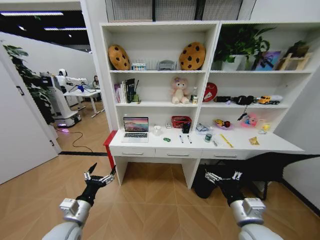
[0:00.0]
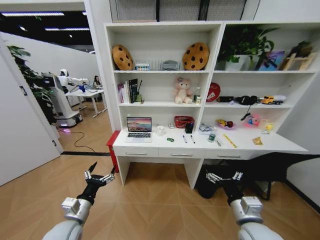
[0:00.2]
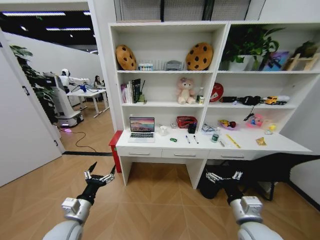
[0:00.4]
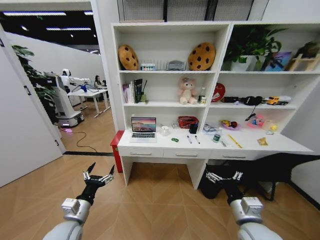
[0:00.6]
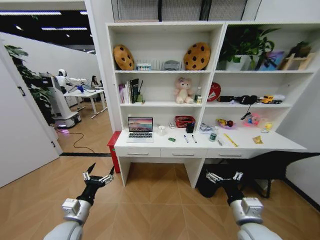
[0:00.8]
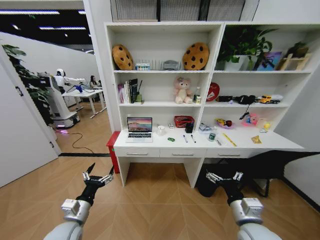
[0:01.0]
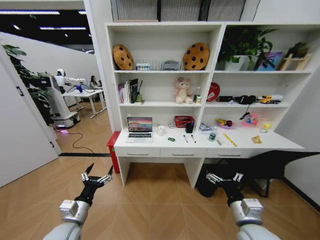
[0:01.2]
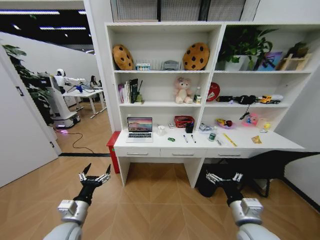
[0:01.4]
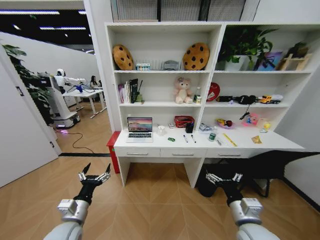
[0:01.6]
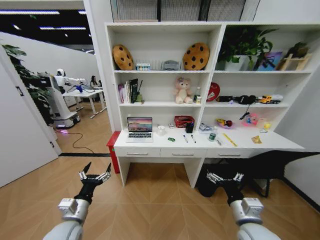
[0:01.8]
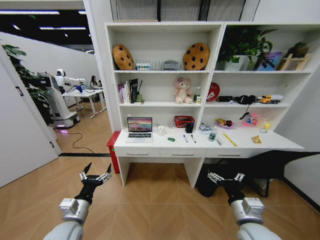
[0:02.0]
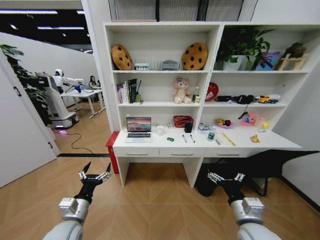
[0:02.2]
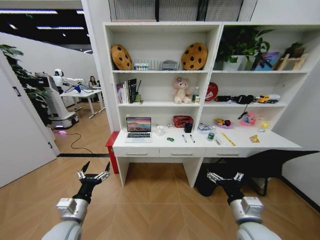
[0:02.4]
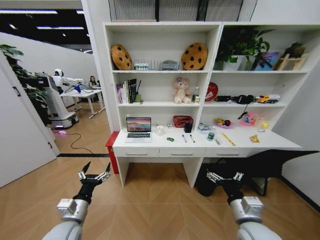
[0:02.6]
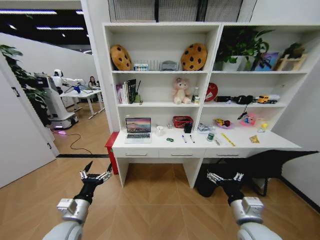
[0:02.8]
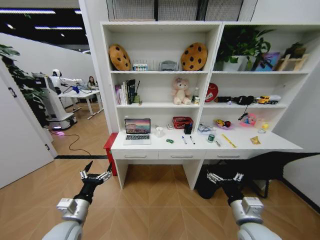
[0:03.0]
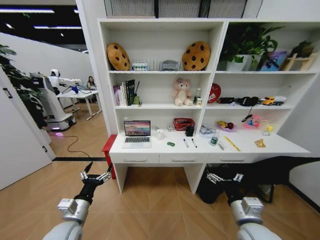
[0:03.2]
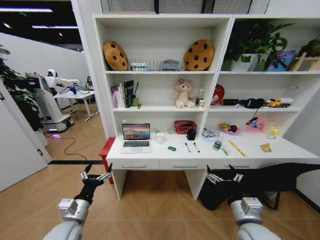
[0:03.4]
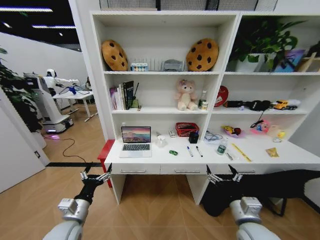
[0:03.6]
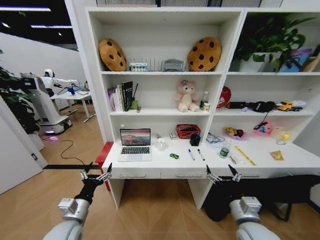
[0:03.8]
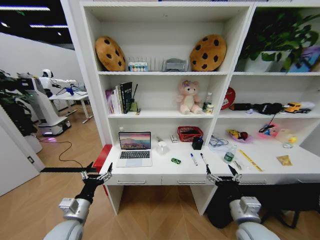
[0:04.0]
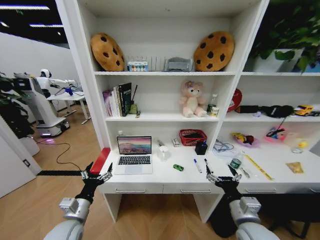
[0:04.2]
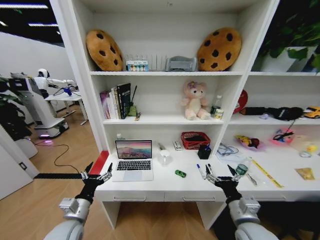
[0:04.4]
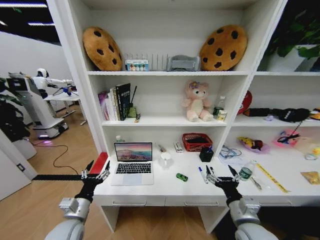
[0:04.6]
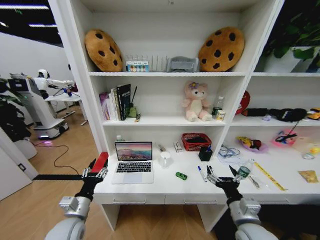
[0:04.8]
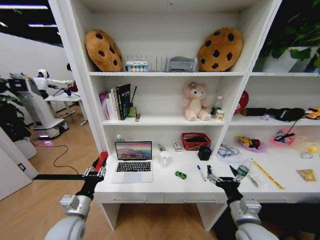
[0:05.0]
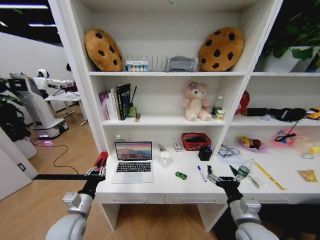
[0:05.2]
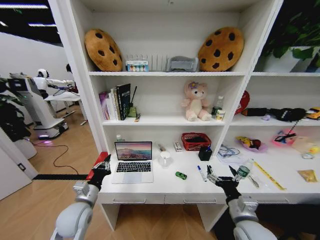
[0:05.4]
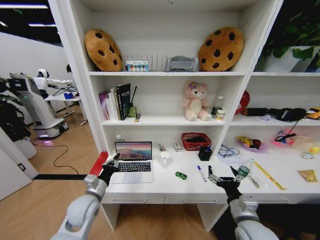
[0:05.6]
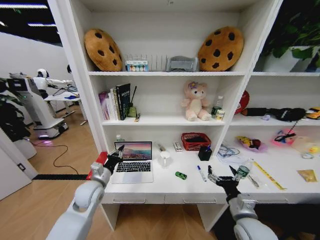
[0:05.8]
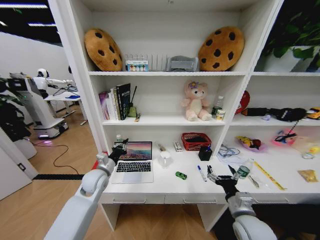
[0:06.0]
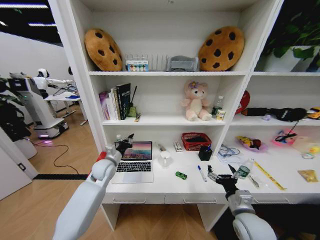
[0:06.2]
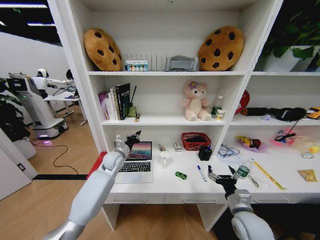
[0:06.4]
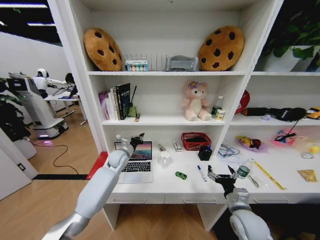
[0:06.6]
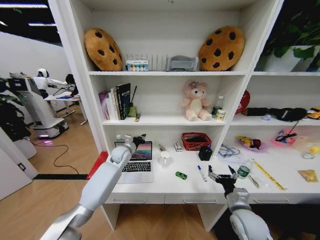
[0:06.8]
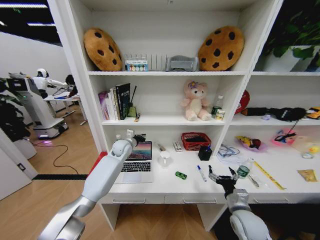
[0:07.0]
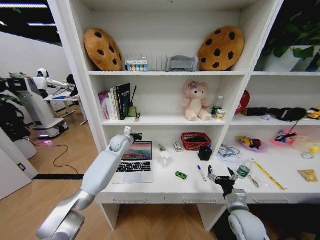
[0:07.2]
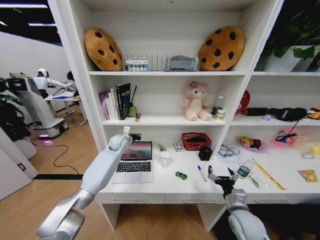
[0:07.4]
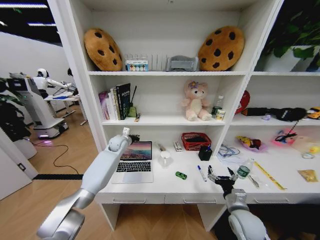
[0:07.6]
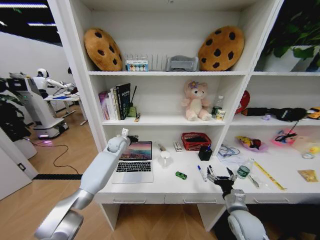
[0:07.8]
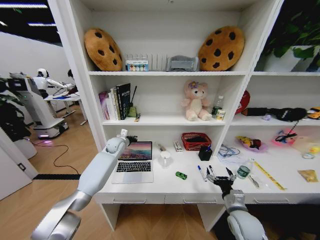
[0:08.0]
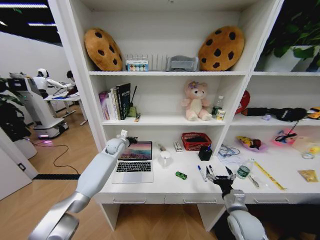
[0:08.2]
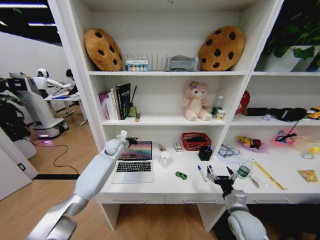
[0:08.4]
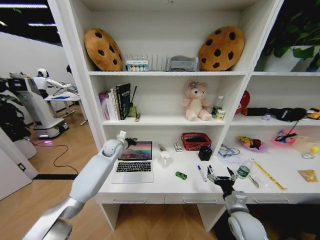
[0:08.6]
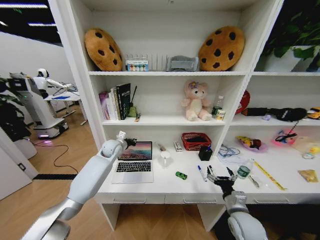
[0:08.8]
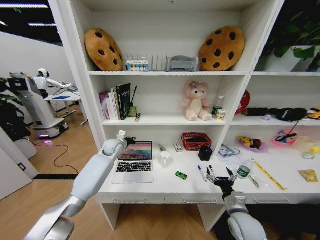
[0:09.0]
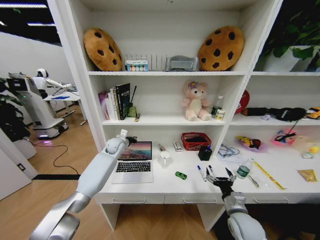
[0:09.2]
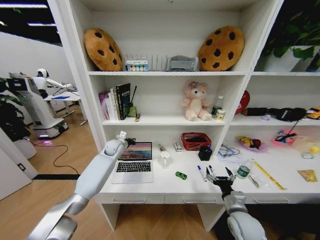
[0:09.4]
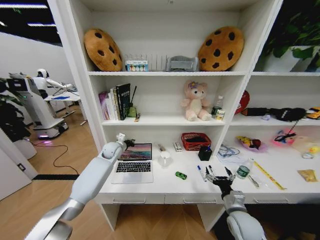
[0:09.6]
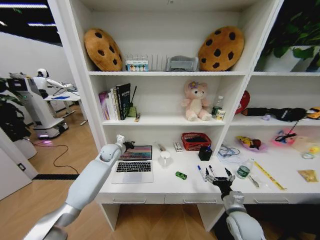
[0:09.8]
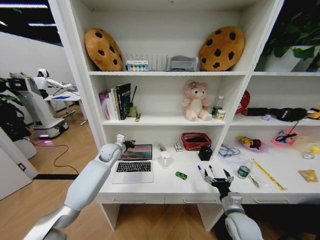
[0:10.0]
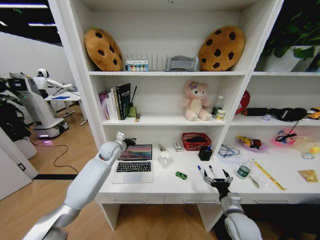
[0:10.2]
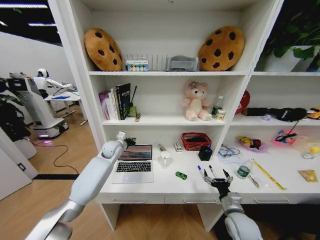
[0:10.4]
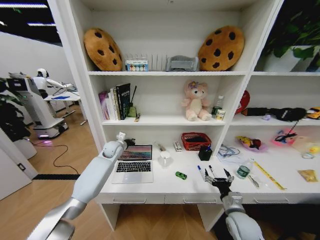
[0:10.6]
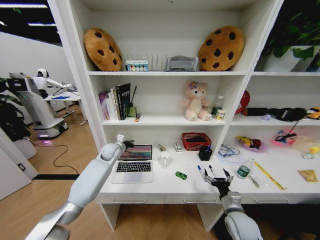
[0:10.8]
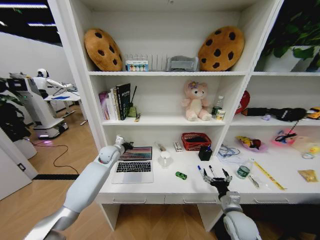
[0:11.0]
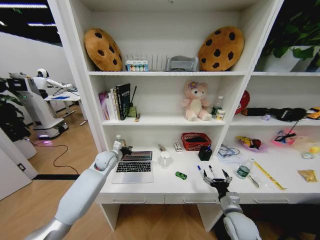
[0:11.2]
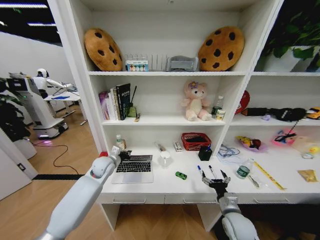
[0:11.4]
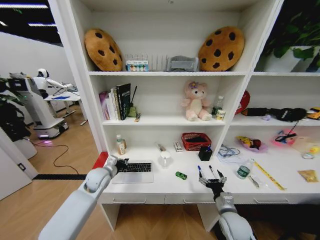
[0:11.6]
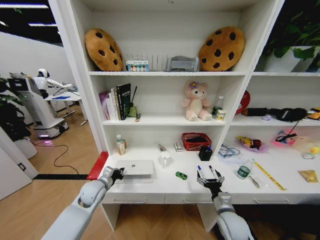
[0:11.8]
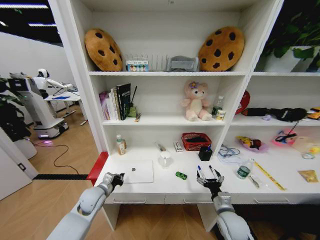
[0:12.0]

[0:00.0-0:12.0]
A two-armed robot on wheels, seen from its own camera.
Task of the whole recording: Organize the objects on the table.
0:01.6 to 0:03.0: Both grippers stay put.
0:04.4 to 0:06.0: The left gripper shifts some 15 cm forward, and closes its fingers.
0:06.0 to 0:07.6: The left gripper goes some 20 cm forward; the right gripper shifts by about 5 cm.
0:07.6 to 0:09.0: The grippers stay close to where they were, moving slightly.
0:09.0 to 0:10.4: There are only small adjustments of the grippers.
0:10.4 to 0:12.0: The left gripper heads backward and downward, covering some 20 cm.

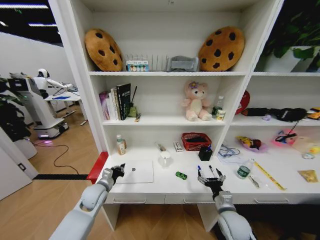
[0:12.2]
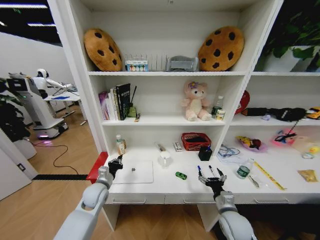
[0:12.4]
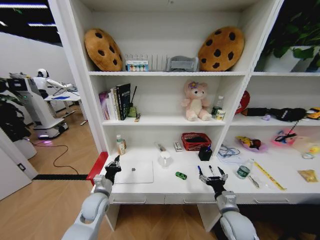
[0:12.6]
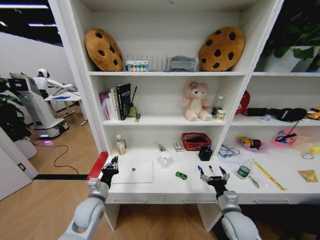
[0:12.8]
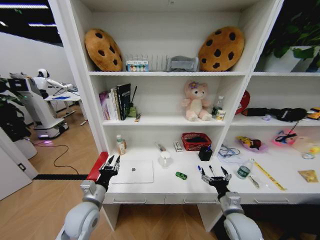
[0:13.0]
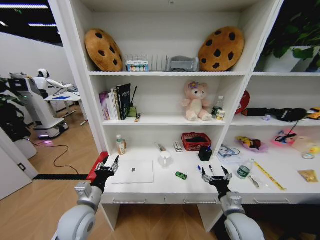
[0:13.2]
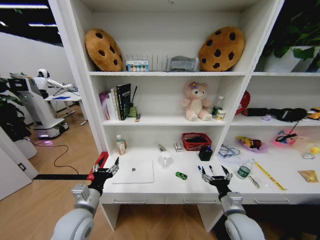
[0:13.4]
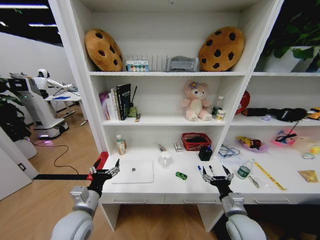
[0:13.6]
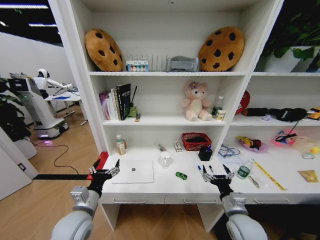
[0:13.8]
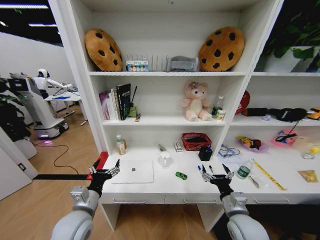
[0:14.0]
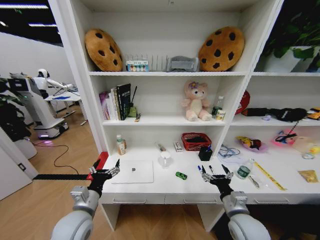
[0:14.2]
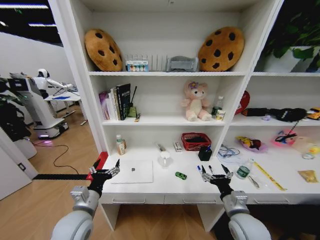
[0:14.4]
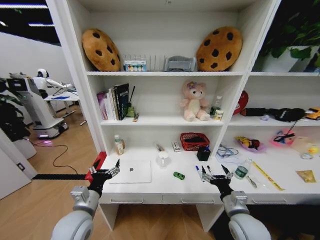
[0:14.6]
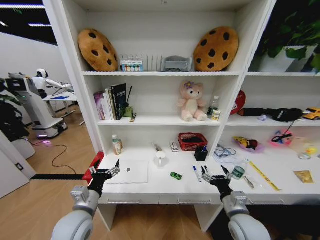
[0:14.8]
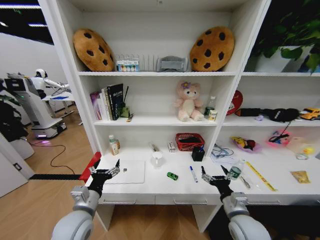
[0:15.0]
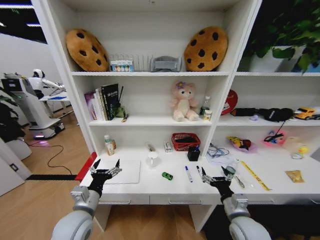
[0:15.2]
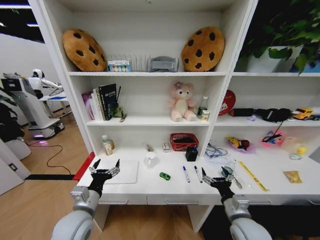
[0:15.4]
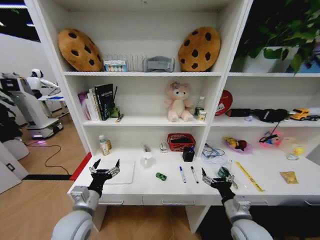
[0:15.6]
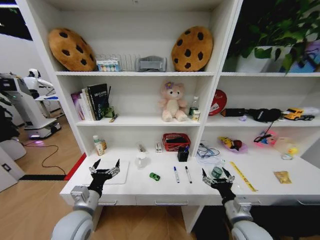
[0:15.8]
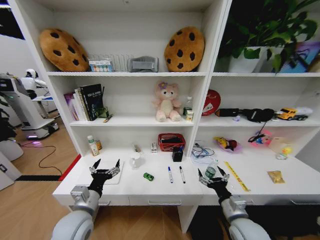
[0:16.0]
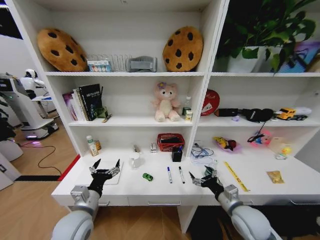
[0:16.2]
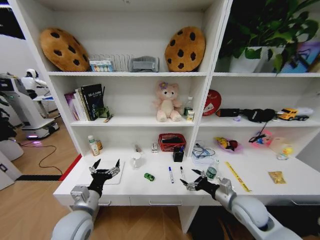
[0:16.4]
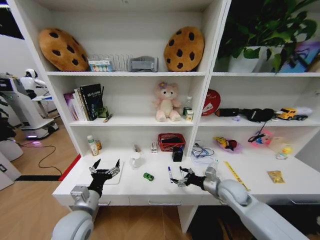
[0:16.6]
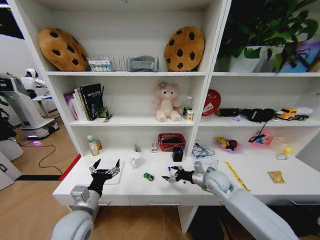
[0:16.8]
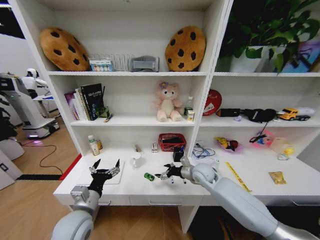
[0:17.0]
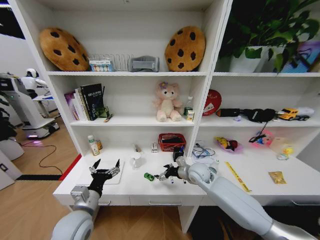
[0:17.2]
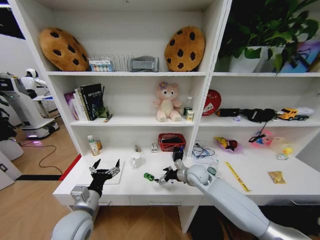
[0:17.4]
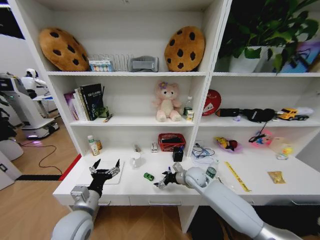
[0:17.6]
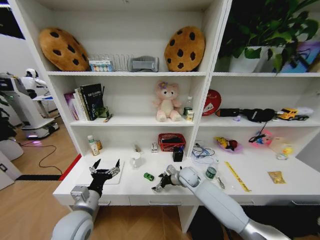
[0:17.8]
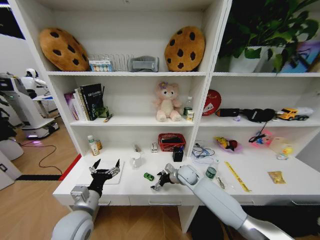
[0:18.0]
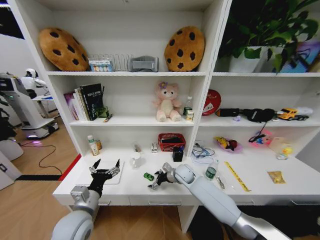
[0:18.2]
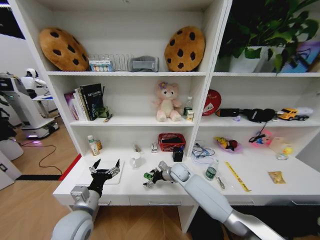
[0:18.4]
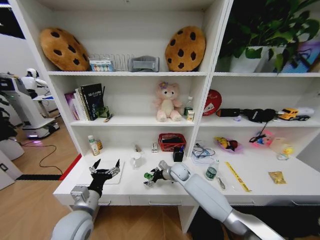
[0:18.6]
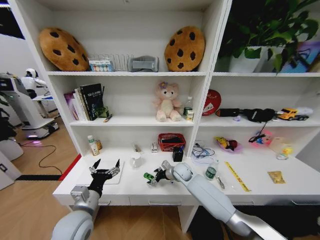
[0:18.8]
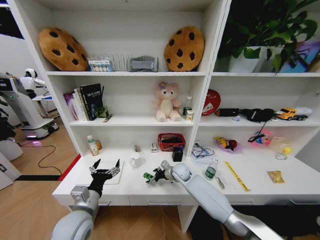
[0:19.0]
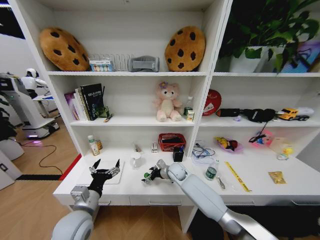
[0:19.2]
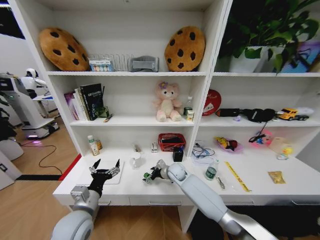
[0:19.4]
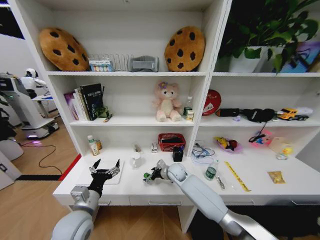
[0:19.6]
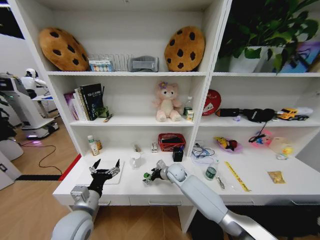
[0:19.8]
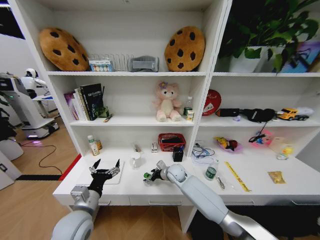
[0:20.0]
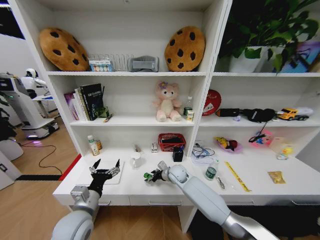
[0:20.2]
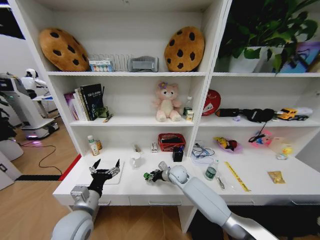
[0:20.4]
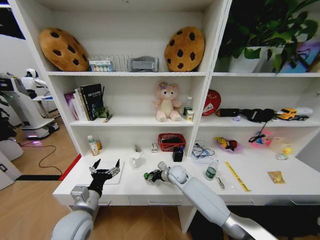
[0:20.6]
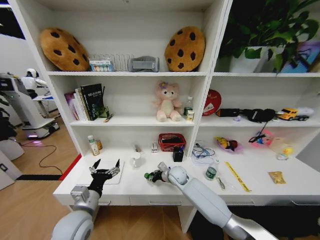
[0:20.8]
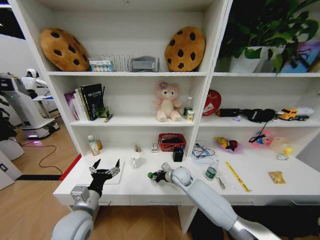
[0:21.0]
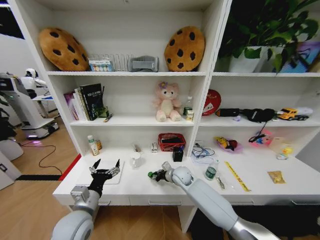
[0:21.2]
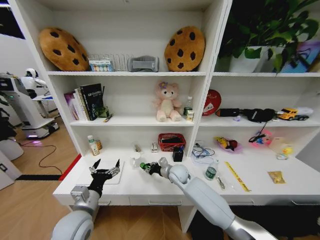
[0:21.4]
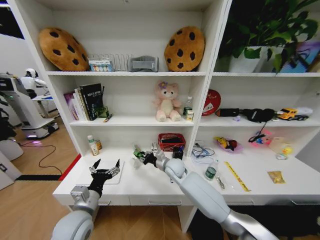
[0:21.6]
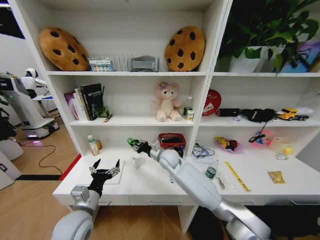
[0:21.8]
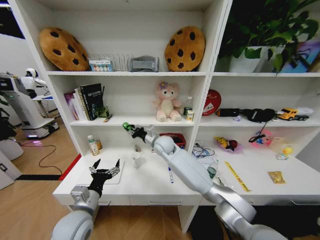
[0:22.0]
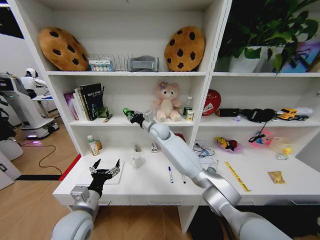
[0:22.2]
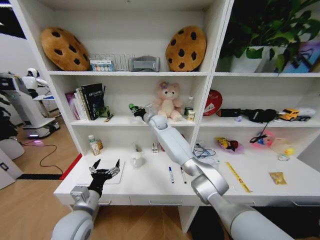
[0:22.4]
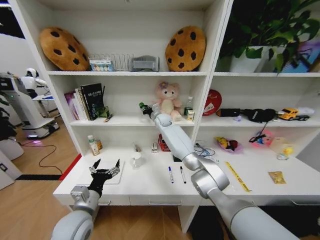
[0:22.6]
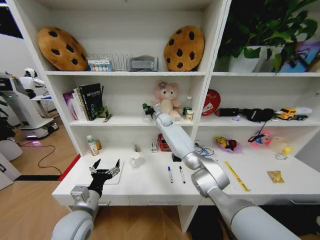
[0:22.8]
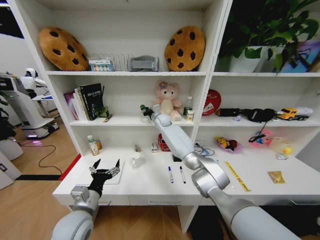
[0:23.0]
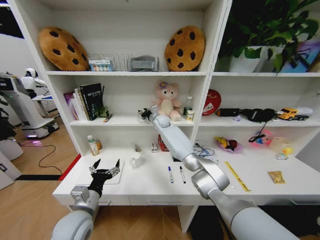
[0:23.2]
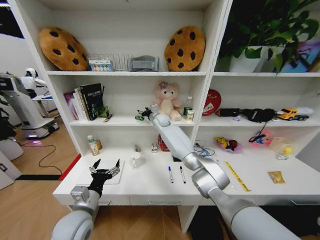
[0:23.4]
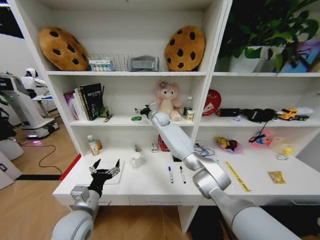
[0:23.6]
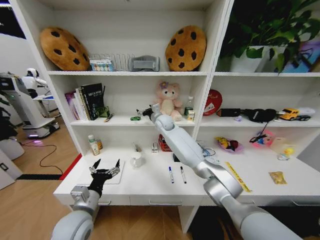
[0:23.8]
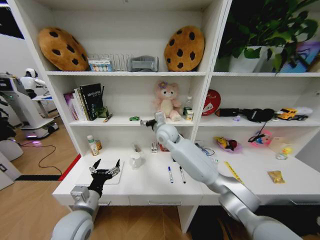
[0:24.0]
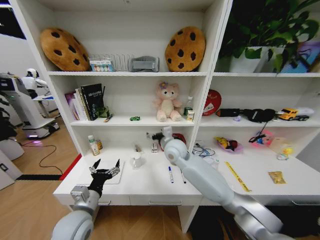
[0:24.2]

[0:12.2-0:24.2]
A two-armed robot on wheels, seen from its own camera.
Task of the whole recording: Organize the objects on the table.
0:12.2 to 0:13.8: The left gripper is displaced backward and upward by roughly 15 cm, and opens. The right gripper is displaced upward by approximately 5 cm.
0:15.2 to 0:16.6: The right gripper shifts approximately 10 cm forward.
0:16.6 to 0:18.2: The right gripper shifts about 20 cm to the left and forward.
0:18.2 to 0:19.8: The grippers stay close to where they were, moving slightly.
0:19.8 to 0:21.2: The right gripper closes its fingers.
0:21.2 to 0:22.6: The right gripper moves forward, upward and to the left, approximately 30 cm.
0:22.6 to 0:24.2: The right gripper moves backward, approximately 20 cm, and opens.
